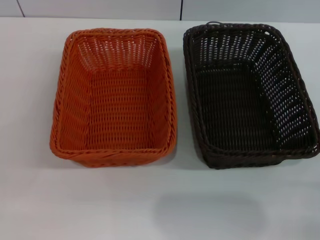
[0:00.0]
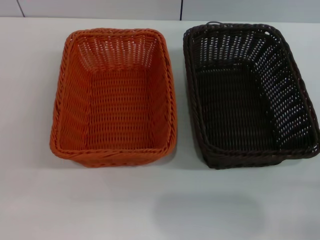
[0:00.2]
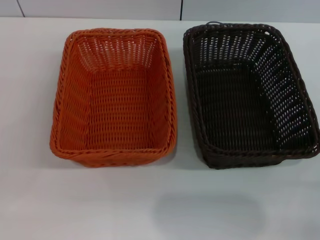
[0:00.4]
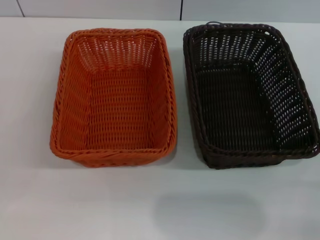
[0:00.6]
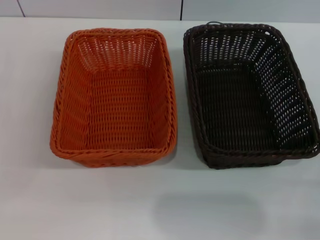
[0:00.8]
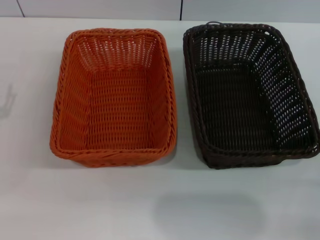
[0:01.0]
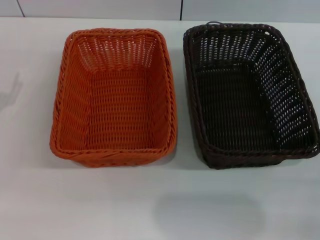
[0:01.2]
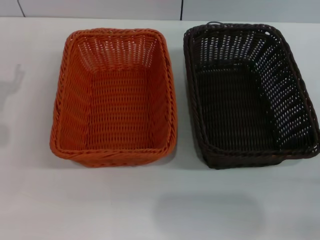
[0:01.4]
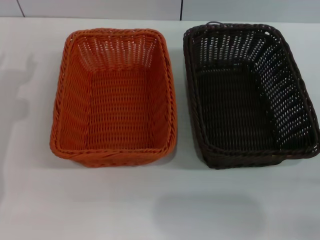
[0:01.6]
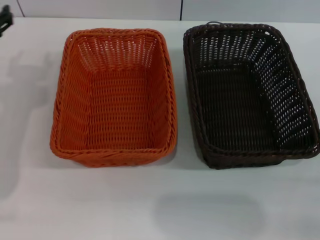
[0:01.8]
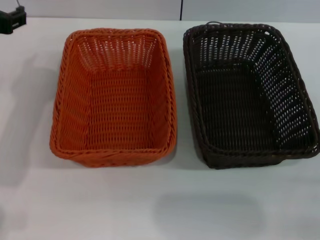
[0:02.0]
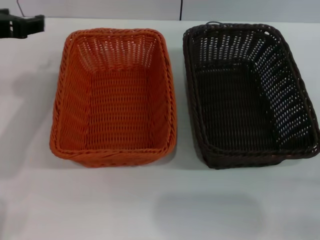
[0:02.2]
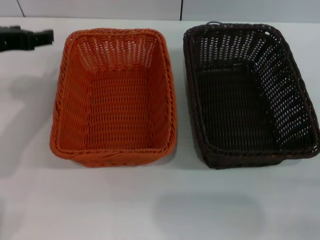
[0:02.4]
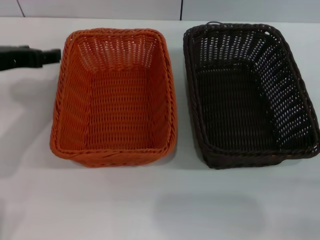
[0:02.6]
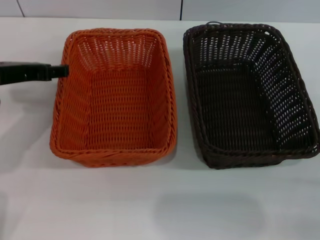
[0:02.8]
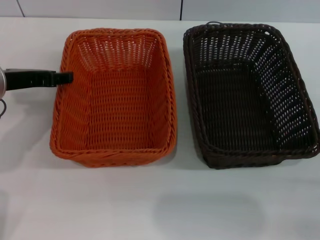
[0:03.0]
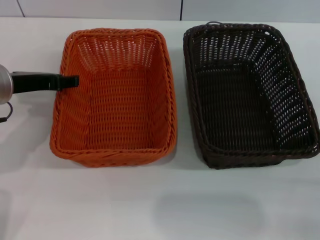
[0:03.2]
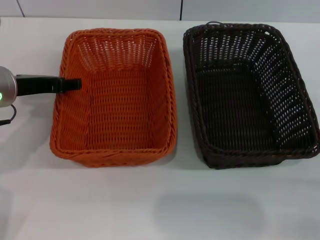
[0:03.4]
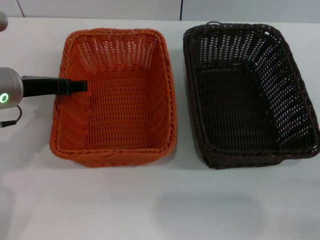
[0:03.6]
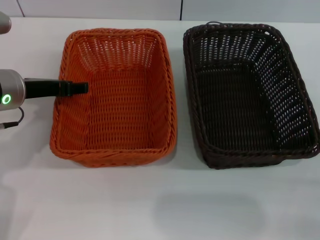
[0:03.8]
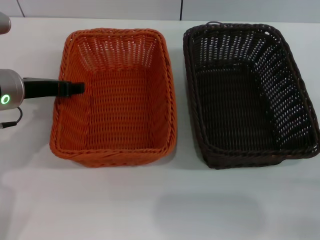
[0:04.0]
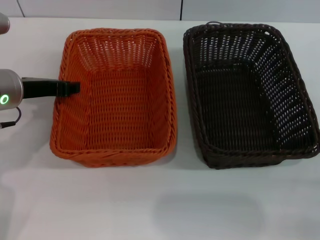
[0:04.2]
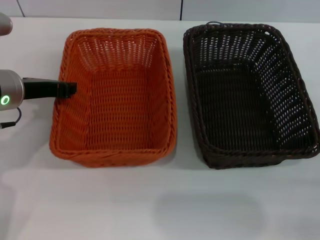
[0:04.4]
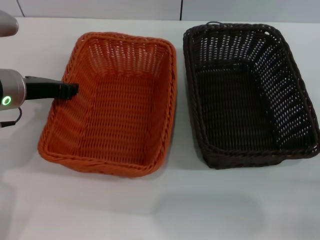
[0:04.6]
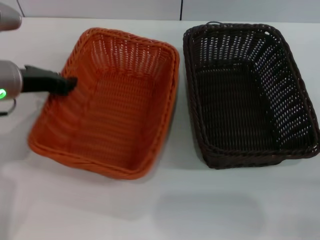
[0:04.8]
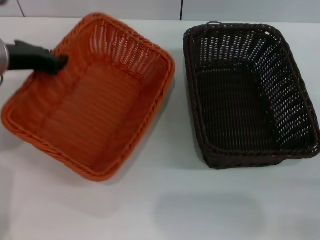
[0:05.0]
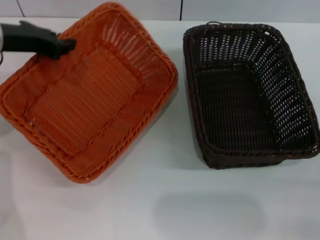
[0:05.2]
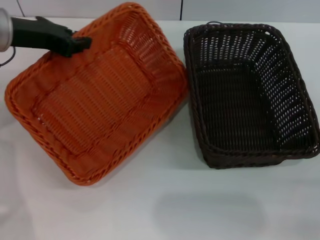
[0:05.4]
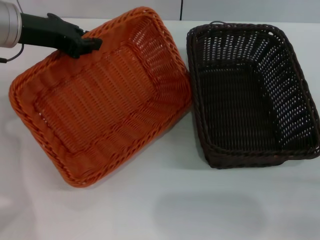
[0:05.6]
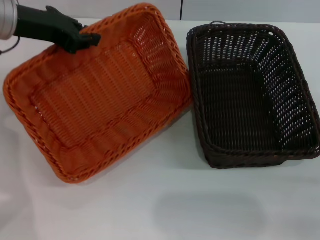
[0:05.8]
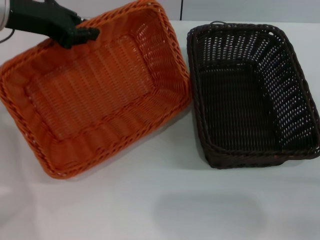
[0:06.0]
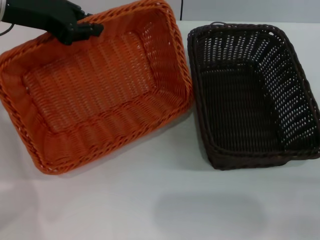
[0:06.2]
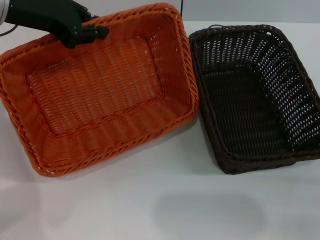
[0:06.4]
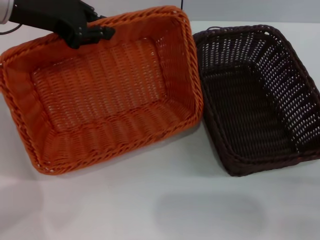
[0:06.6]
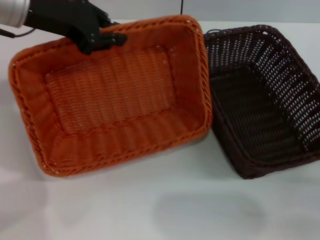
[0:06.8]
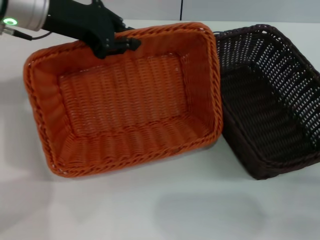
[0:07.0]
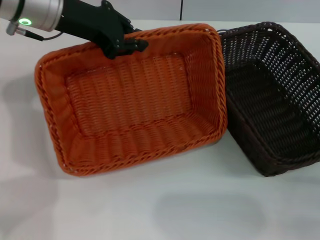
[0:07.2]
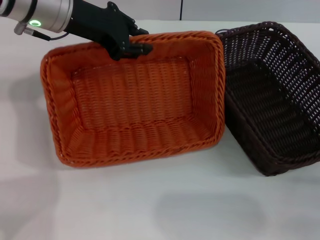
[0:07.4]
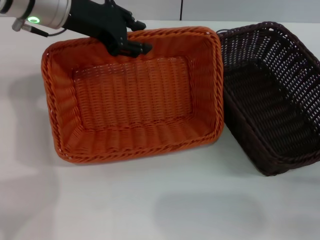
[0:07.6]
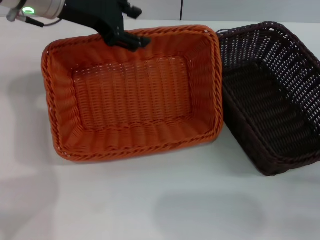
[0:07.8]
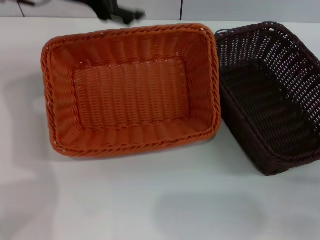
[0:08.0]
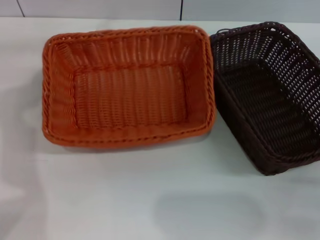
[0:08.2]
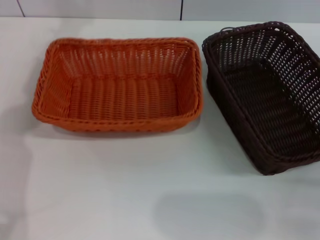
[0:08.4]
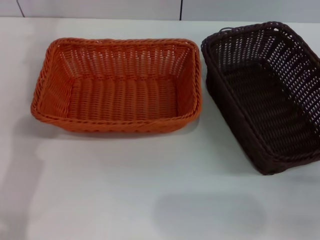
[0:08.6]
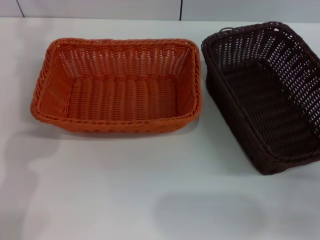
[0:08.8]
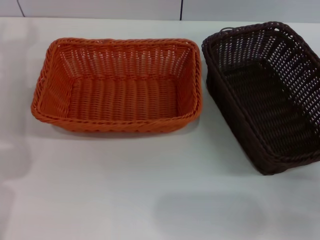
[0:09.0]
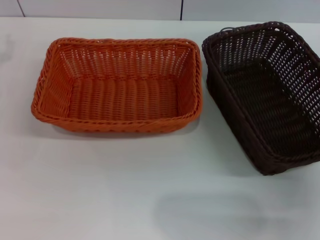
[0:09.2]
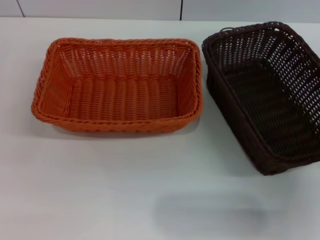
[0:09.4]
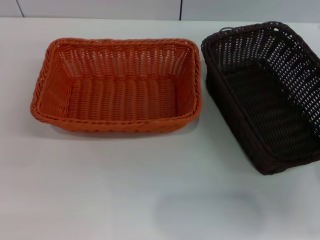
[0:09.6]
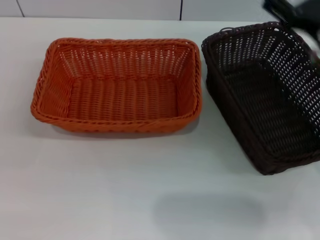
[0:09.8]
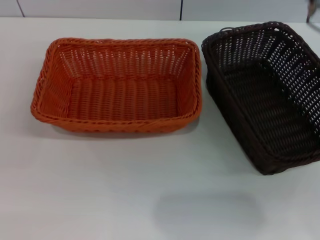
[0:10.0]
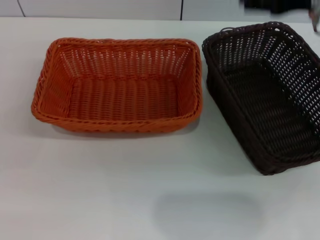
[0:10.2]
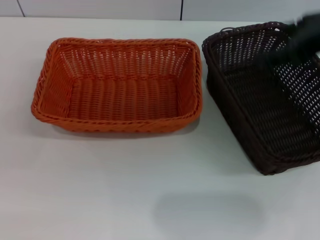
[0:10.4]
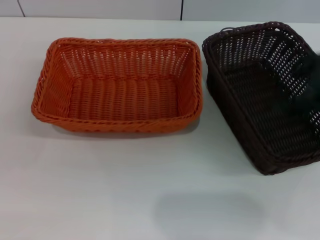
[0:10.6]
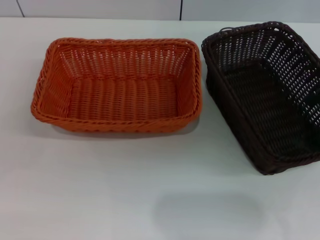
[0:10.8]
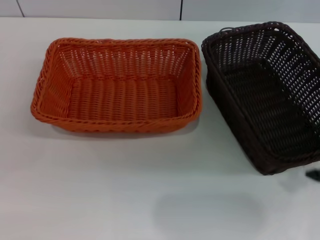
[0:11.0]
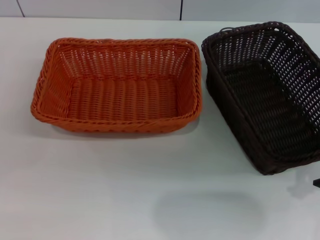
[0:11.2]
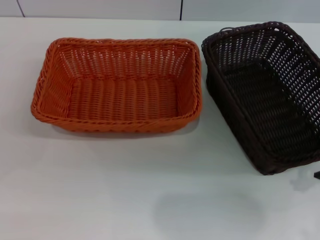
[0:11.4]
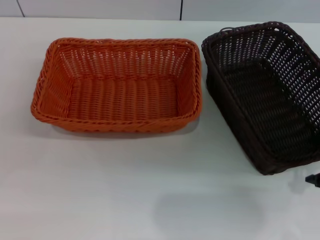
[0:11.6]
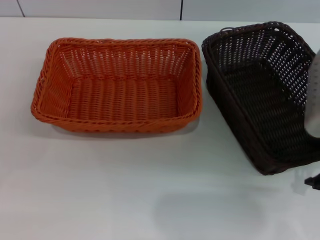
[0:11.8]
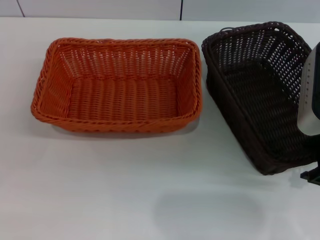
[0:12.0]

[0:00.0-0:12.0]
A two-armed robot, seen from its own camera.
Step, 0:00.0 to 0:04.8: Pick up the light basket with the left gripper.
Step, 0:05.0 to 0:08.2: Place the light basket in the center of view with the left gripper.
0:01.6 to 0:03.0: The left gripper heads to the right, covering roughly 5 cm, and moves roughly 10 cm upward and comes back.
0:03.0 to 0:04.4: The left gripper closes its fingers.
0:04.4 to 0:06.0: The left gripper is displaced upward and forward by roughly 10 cm.
0:06.0 to 0:07.6: The left gripper heads to the right, covering some 5 cm.
0:07.6 to 0:09.0: The left gripper goes roughly 10 cm to the left and backward, and opens.
0:09.0 to 0:10.4: The right gripper shifts roughly 25 cm upward and forward.
0:10.4 to 0:12.0: The right gripper heads downward, covering approximately 10 cm.

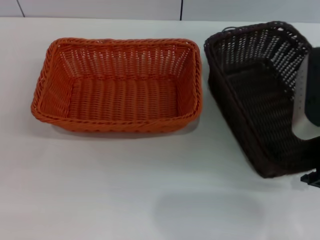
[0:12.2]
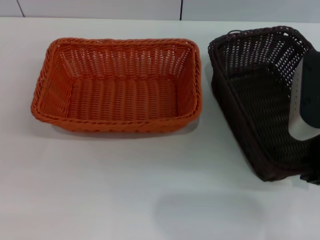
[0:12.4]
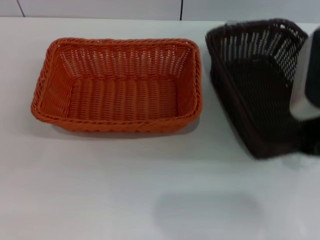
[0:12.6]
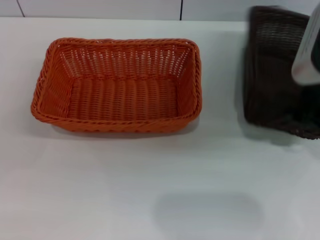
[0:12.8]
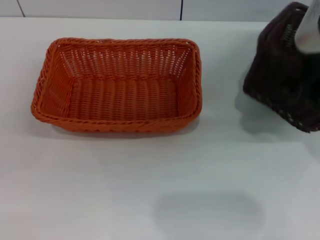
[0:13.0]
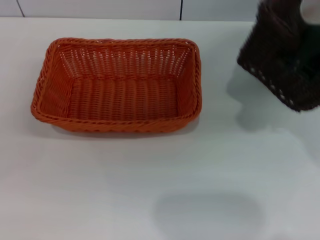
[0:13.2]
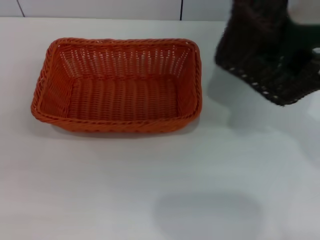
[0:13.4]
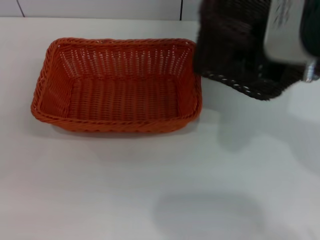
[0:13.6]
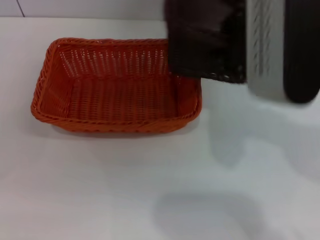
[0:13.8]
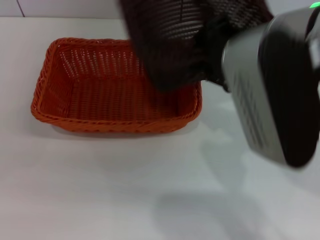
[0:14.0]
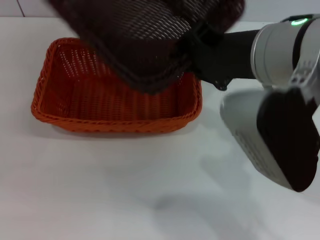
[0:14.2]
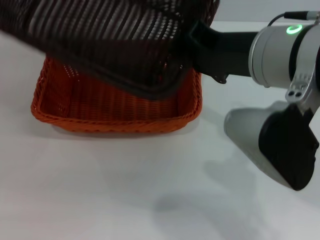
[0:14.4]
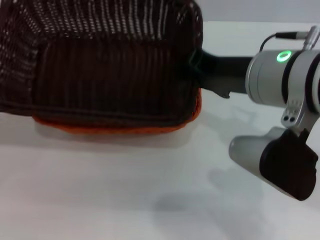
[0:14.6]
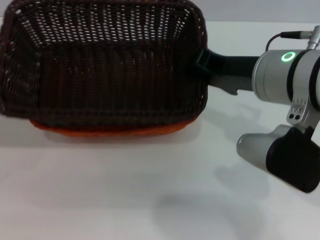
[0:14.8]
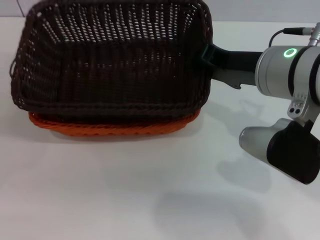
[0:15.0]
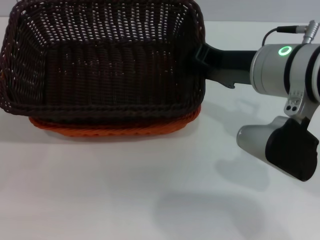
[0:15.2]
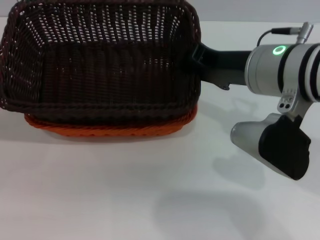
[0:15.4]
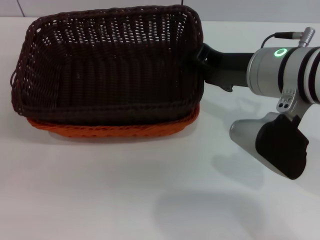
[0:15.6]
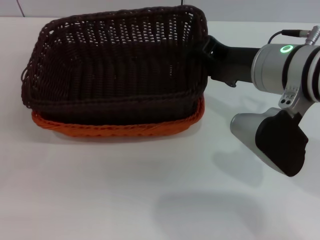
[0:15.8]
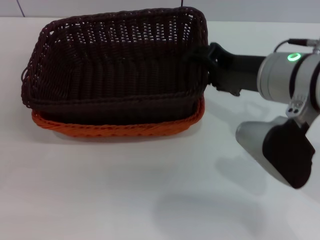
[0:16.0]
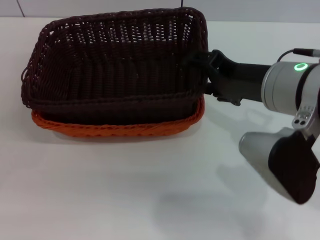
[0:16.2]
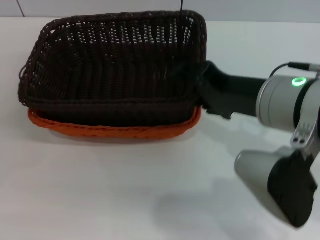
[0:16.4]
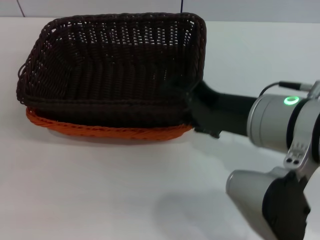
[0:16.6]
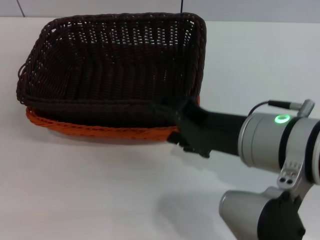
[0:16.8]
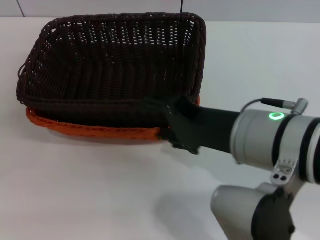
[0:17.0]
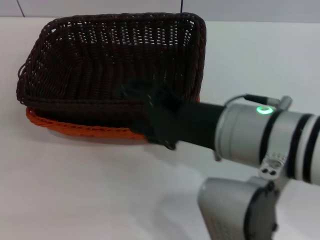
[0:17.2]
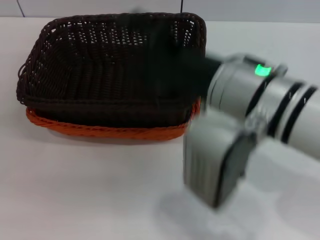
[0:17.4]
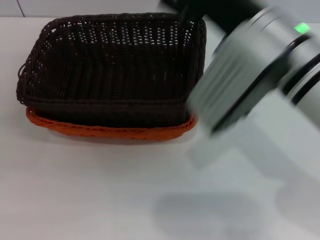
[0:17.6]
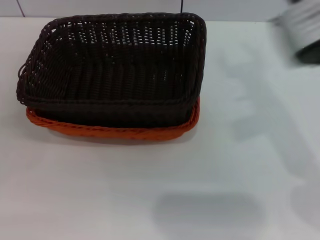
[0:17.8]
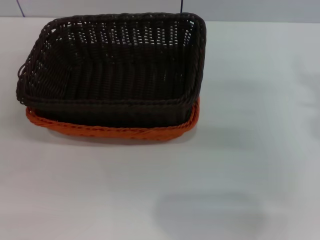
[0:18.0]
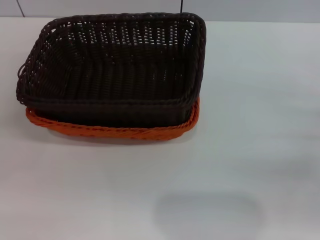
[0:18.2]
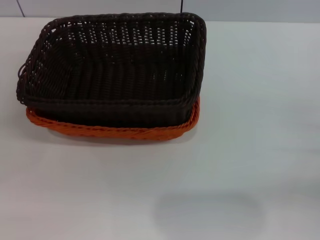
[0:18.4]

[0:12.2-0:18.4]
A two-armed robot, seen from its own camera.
Step, 0:12.8 to 0:16.4: Place the dark basket on the light basket with the right gripper.
0:12.2 to 0:13.8: The right gripper heads upward and to the left, covering some 15 cm, and closes.
0:13.8 to 0:15.4: The right gripper shifts roughly 10 cm downward.
0:15.4 to 0:16.8: The right gripper moves backward, roughly 10 cm, and opens.
0:16.8 to 0:18.4: The right gripper is displaced to the right and downward by roughly 25 cm.
